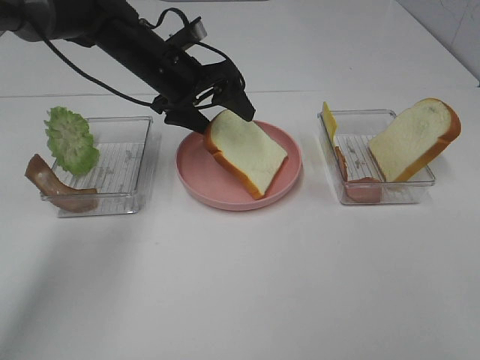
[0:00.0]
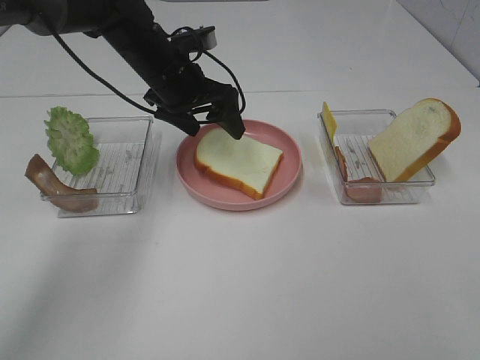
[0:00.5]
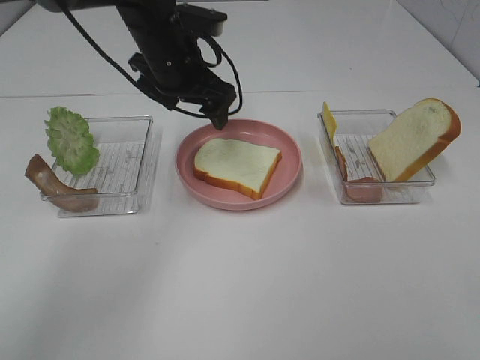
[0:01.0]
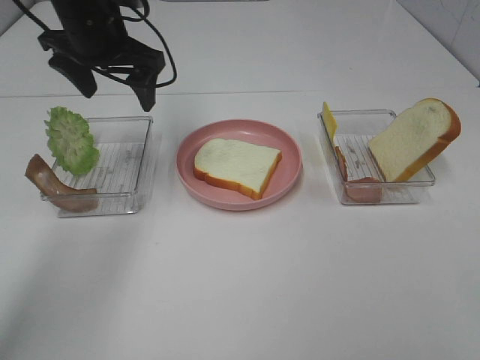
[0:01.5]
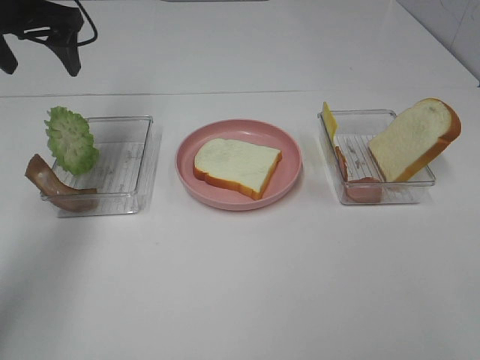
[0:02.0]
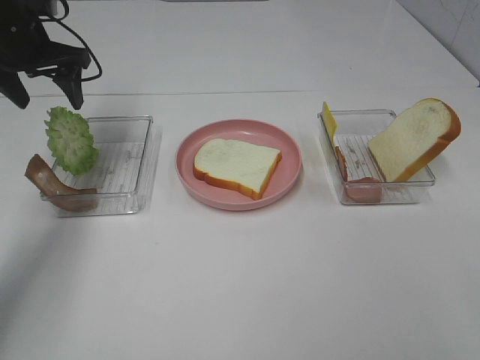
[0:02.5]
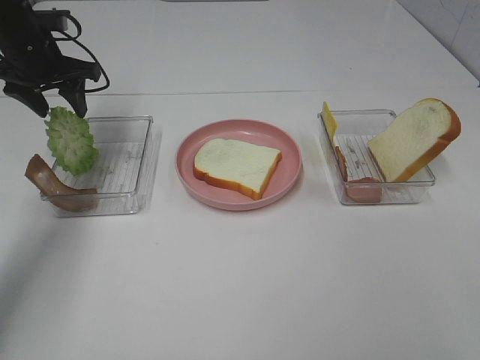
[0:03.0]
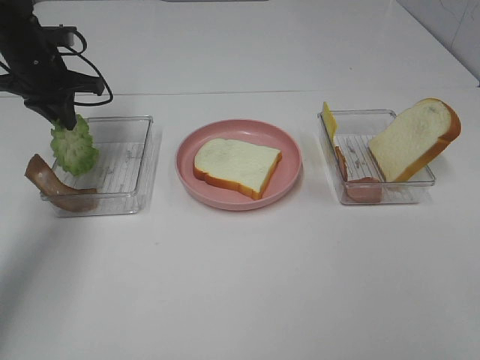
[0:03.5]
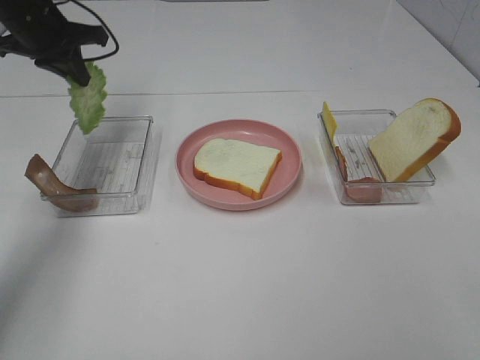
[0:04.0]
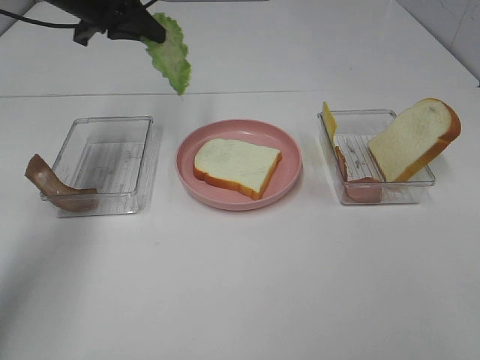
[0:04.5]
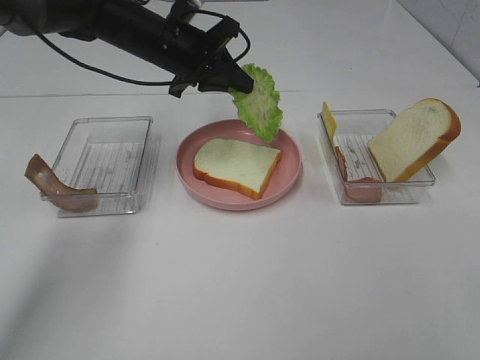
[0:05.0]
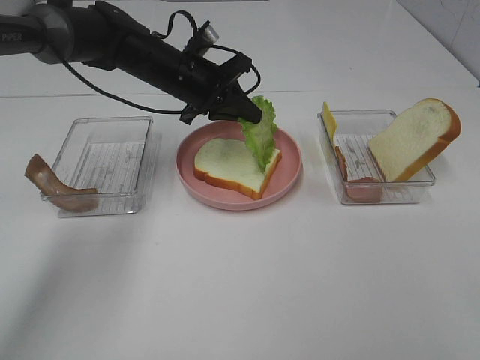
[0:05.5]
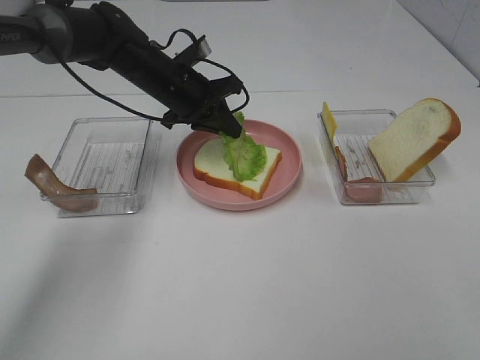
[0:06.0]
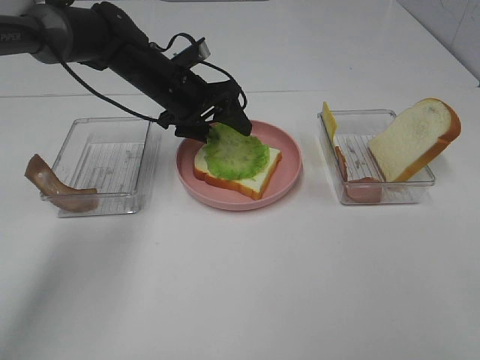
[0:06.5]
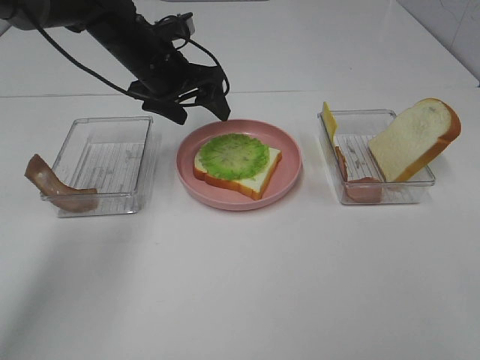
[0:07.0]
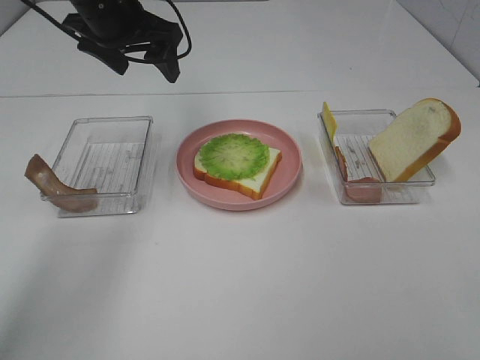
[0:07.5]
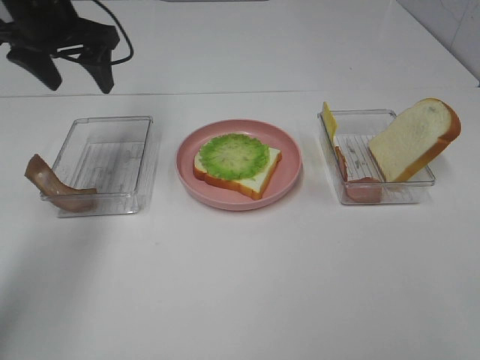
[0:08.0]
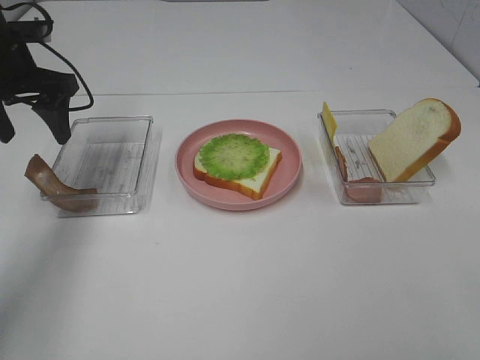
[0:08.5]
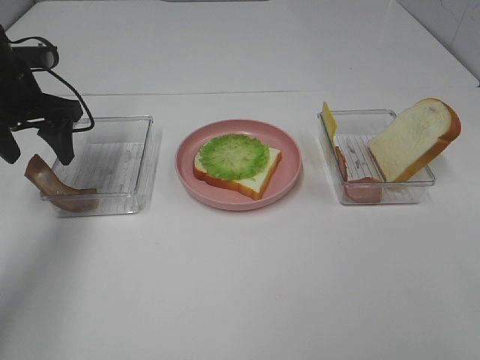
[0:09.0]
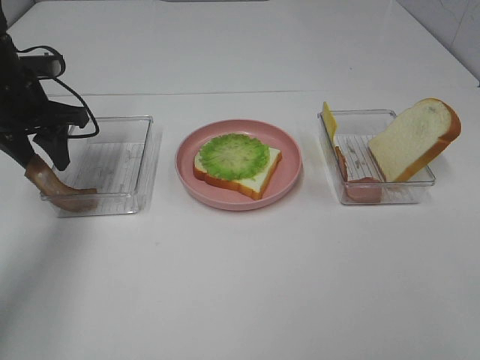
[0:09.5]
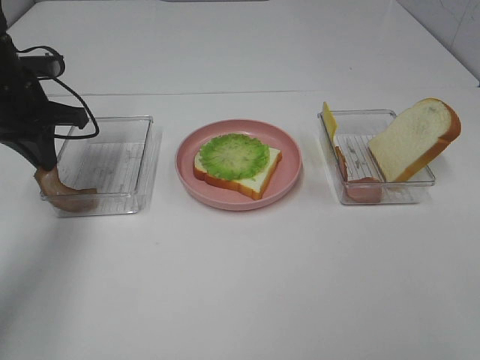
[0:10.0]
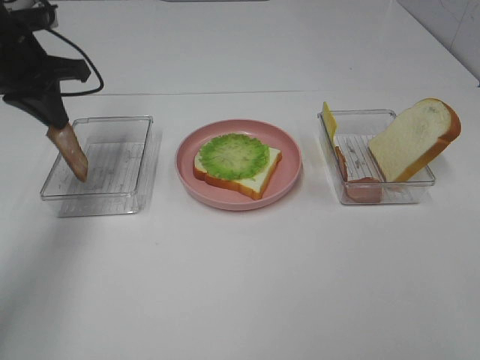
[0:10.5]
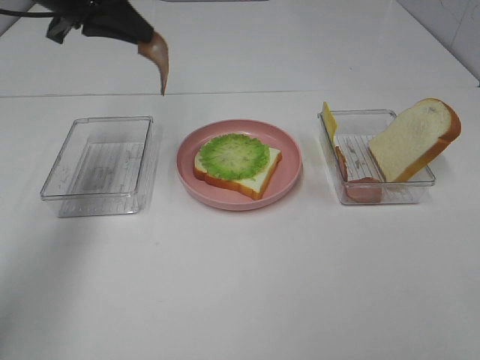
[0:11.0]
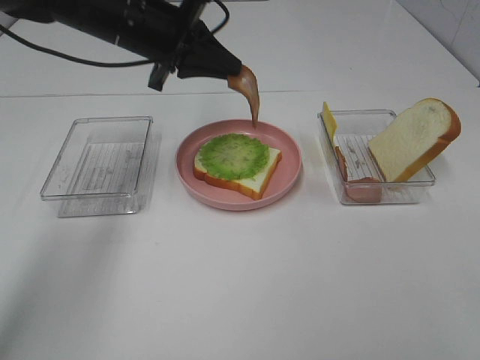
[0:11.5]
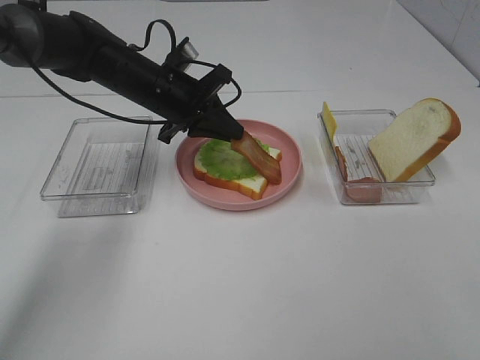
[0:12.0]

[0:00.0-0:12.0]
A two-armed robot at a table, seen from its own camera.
Task of the whole recording: Make sandwiches.
Step, 0:01.0 to 0:03.5: Left hand:grab the lettuce slice.
Step, 0:04.0 to 0:06.5: Left hand:place the lettuce slice on the bread slice.
Step, 0:07.0 to 0:10.0: Left hand:grab the bacon.
0:00.0 to 0:02.0: The left gripper travels to the left and upward by about 20 cm.
0:02.0 to 0:04.0: The left gripper closes.
0:04.0 to 0:06.0: The left gripper travels to the right and downward by approximately 20 cm.
0:06.0 to 0:08.0: The left gripper goes some 20 cm to the left and upward, and opens its fingers.
0:08.0 to 0:10.0: The left gripper travels downward by some 10 cm, and closes its fingers.
0:10.0 to 0:12.0: The left gripper goes some 15 cm to the right.

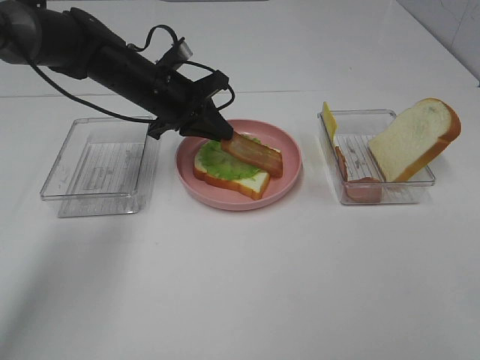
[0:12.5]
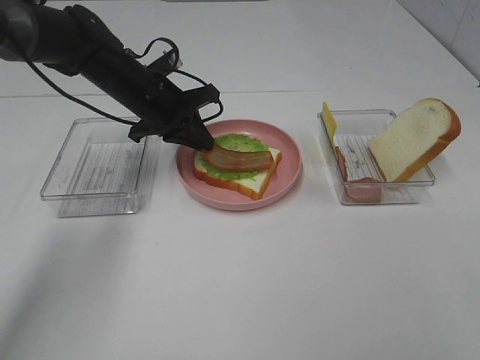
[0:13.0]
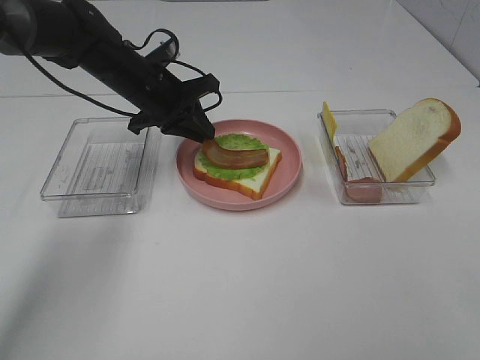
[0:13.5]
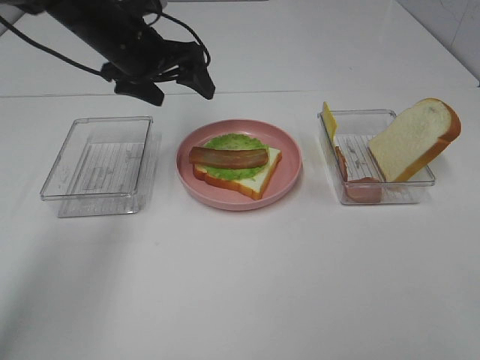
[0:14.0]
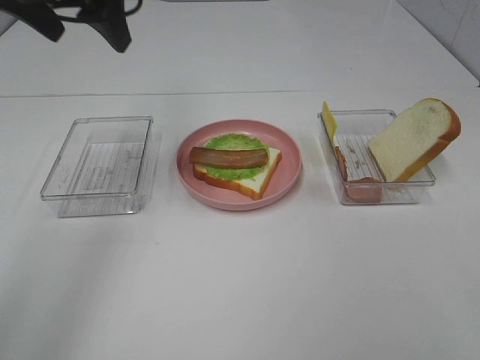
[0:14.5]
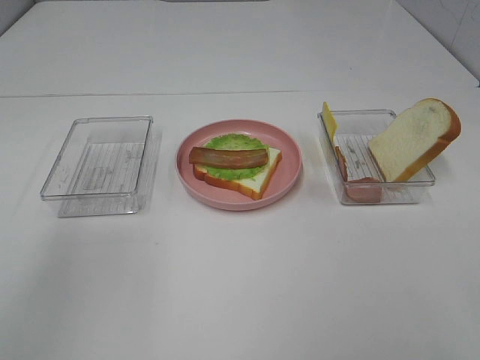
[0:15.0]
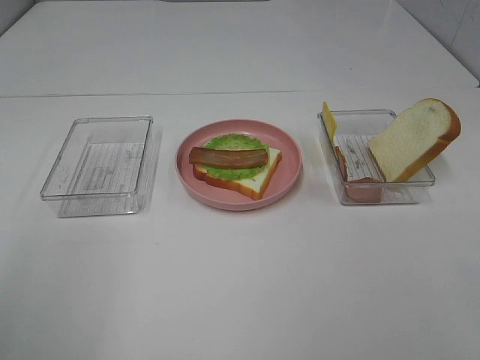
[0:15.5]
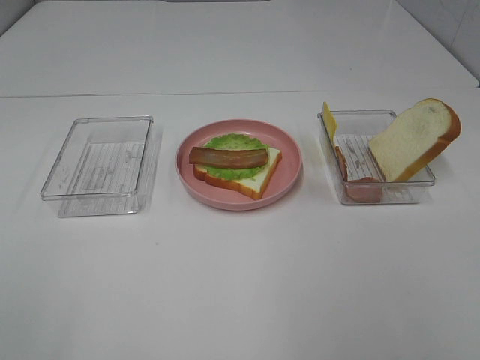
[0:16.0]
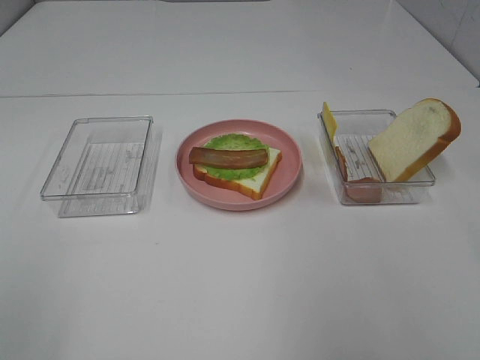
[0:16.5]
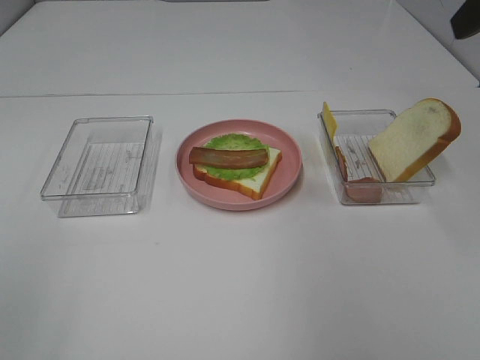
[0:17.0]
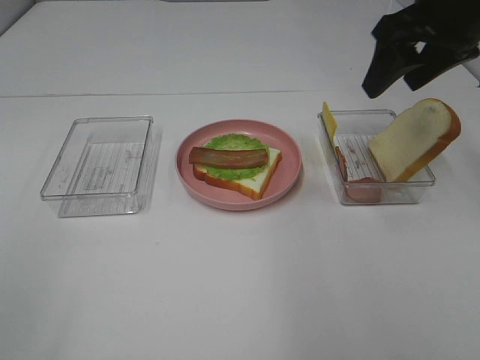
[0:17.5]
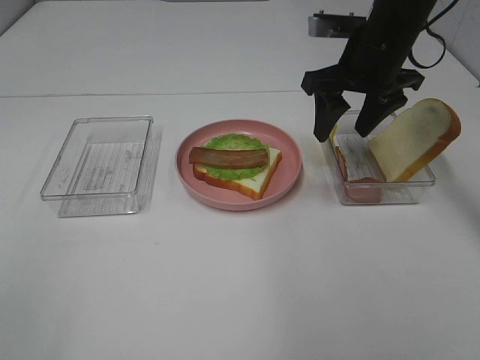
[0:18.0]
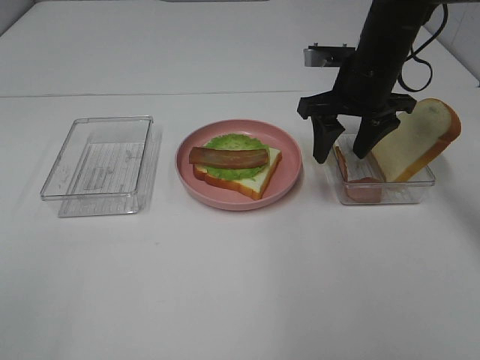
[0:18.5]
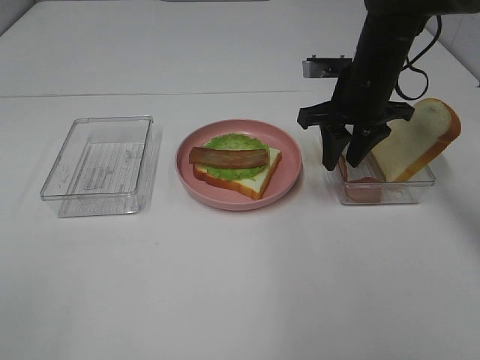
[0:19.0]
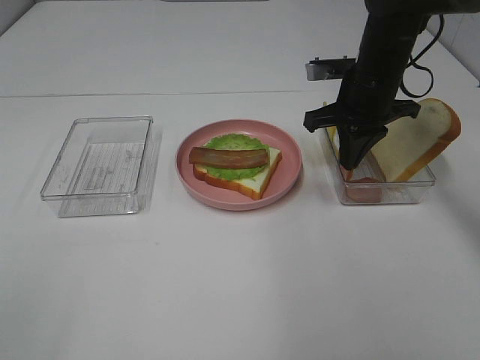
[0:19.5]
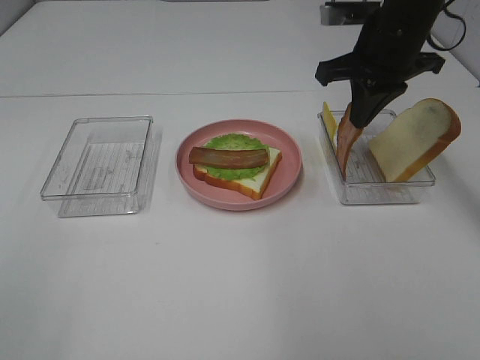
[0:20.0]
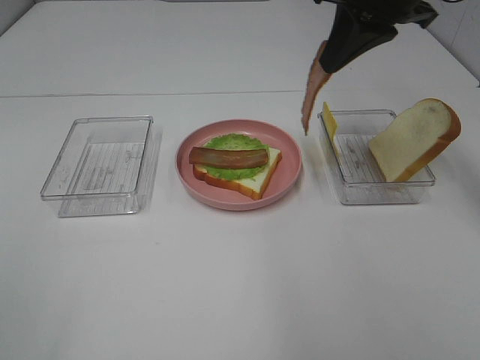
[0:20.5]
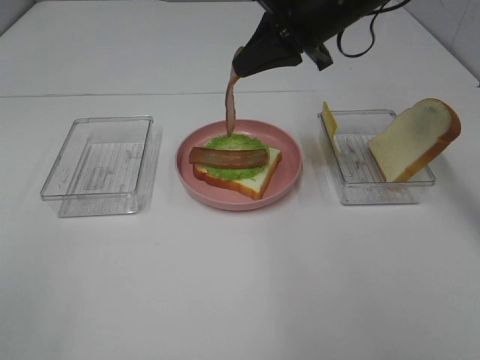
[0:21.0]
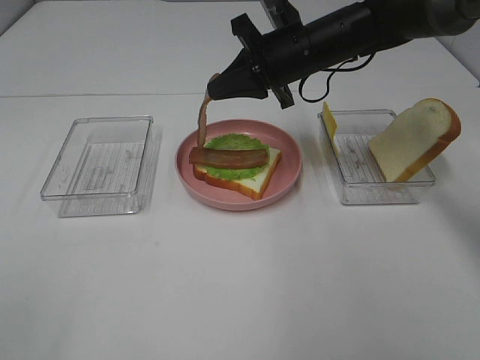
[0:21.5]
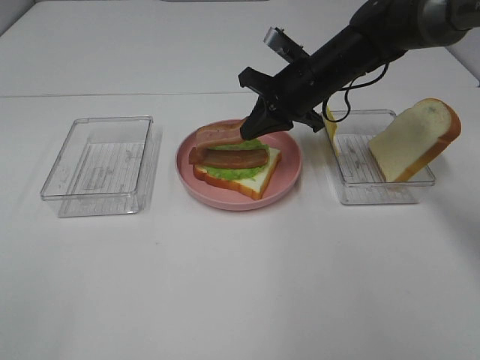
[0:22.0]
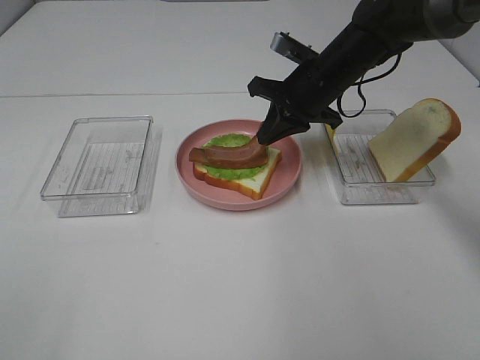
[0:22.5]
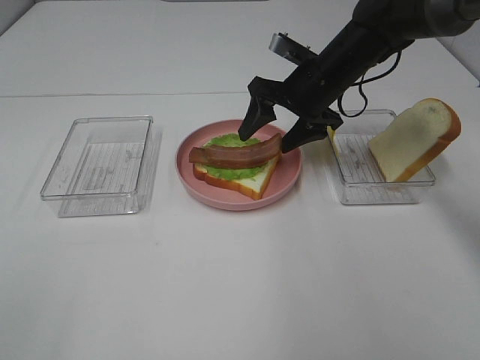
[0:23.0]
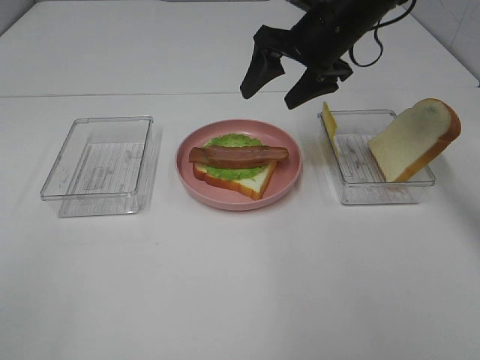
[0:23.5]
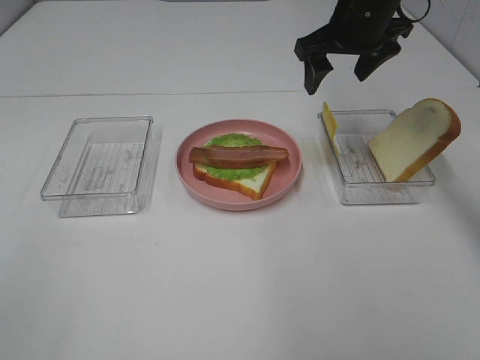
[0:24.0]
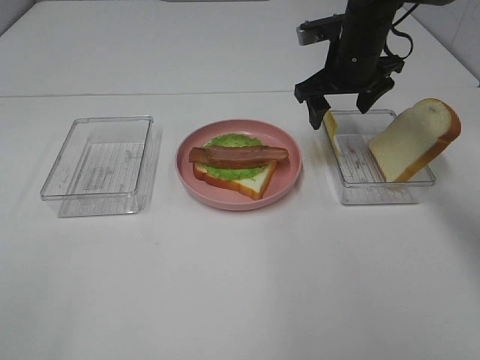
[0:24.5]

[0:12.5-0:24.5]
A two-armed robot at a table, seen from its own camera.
Task of the whole recording: Make sandwiches.
Step, 0:14.0 to 0:19.0: Right hand:grab the bacon.
Step, 0:19.5 to 0:23.0: Right hand:place bacon on bacon.
0:12.5 to 0:14.5: The left gripper travels upward by approximately 20 cm, and opens.
0:14.5 to 0:16.5: The left gripper shifts roughly 40 cm backward.
0:16.5 to 0:18.5: The right gripper shifts about 35 cm forward, downward and to the left.
0:18.5 to 0:20.5: The right gripper is displaced upward by roughly 15 cm, and closes its fingers.
0:20.5 to 0:22.5: The right gripper travels downward and forward by some 20 cm.
0:22.5 to 0:24.5: The right gripper goes upward and returns, approximately 10 cm each way, and opens its fingers.

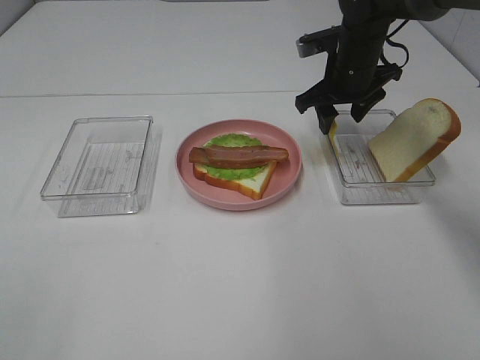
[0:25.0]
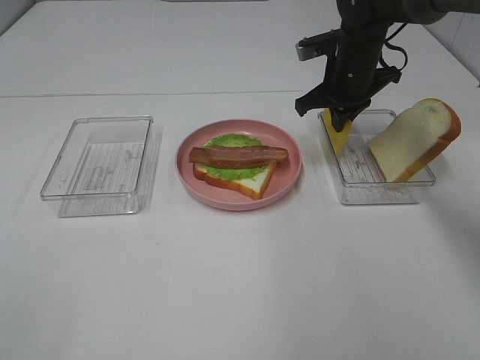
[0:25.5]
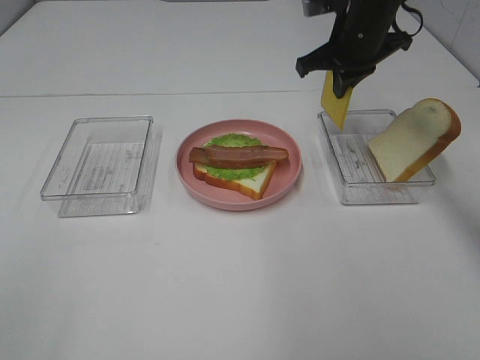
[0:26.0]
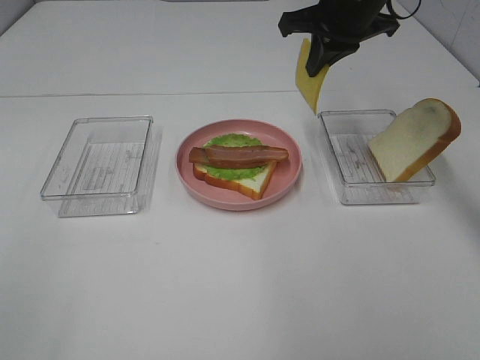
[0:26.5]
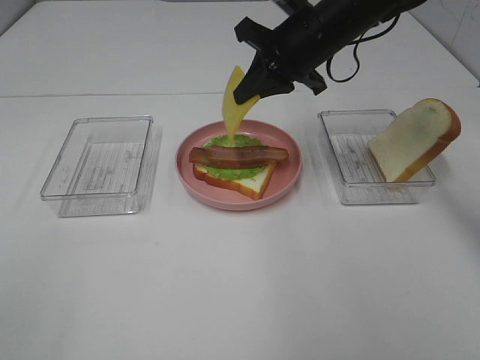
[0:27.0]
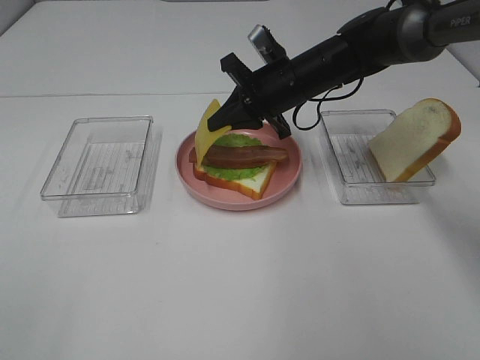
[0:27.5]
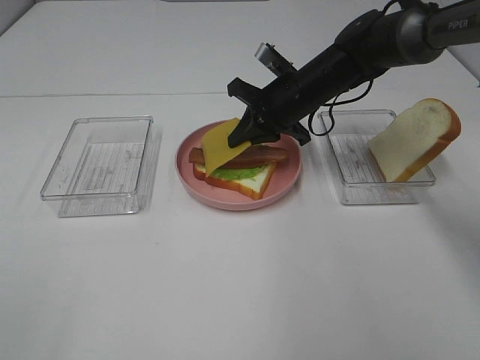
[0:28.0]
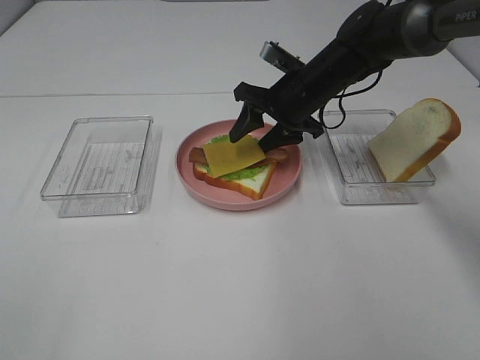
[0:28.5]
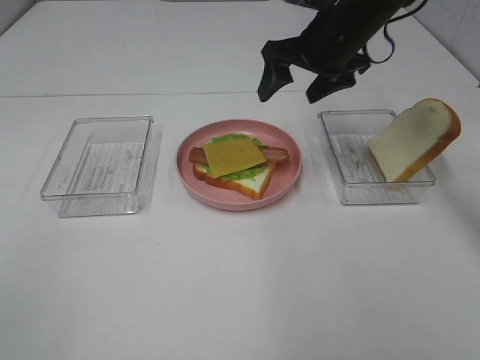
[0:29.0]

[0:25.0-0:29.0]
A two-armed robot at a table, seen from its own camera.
Task of the whole recording: Make sandwiches.
Step, 0:26.0 to 0:28.5: Right hand:place the cheese slice on top of the bacon.
0:25.0 to 0:27.0: The right gripper heads upward and to the left, covering roughly 10 cm, and closes.
0:27.0 to 0:29.0: The right gripper reaches about 10 cm downward, then returns, and opens its fingers.
